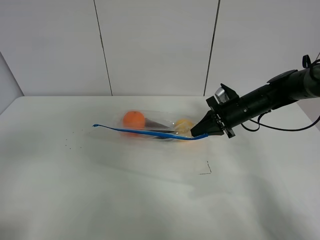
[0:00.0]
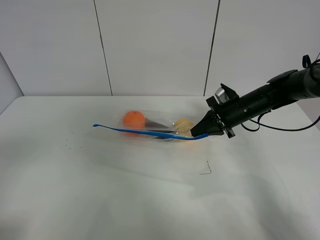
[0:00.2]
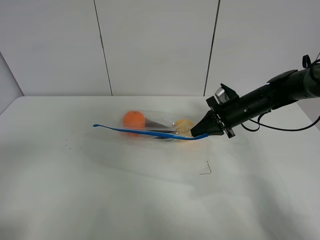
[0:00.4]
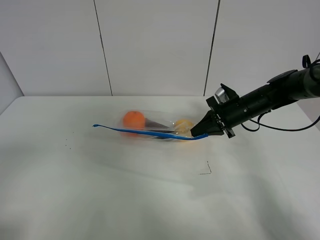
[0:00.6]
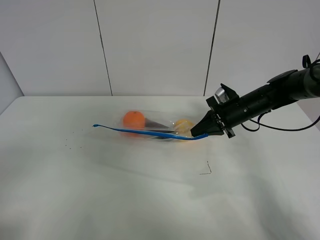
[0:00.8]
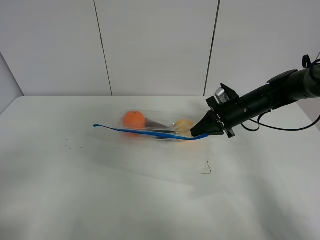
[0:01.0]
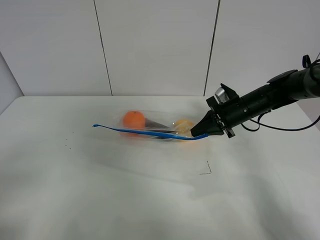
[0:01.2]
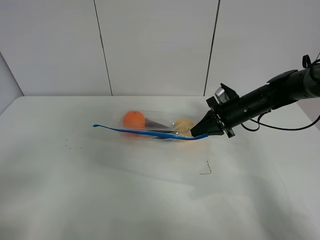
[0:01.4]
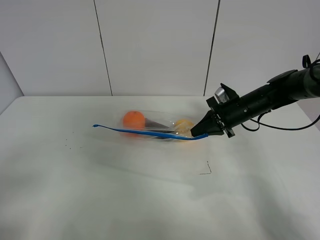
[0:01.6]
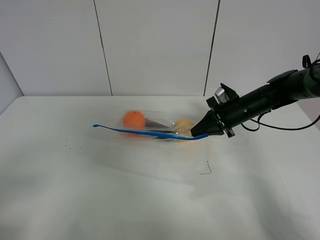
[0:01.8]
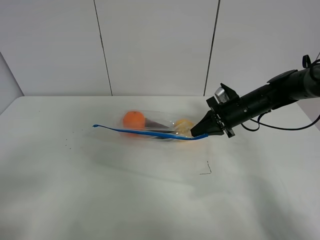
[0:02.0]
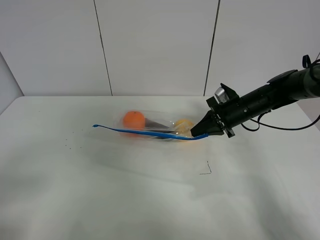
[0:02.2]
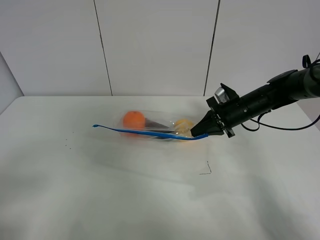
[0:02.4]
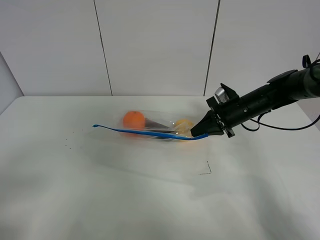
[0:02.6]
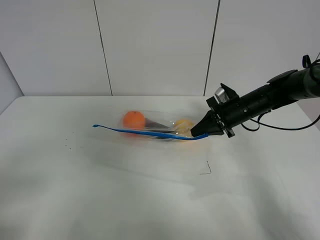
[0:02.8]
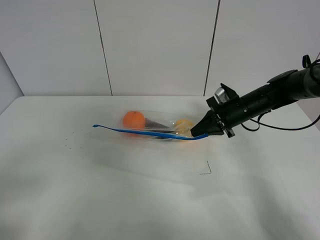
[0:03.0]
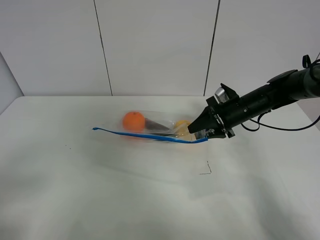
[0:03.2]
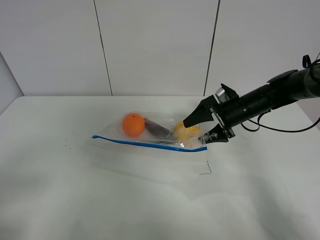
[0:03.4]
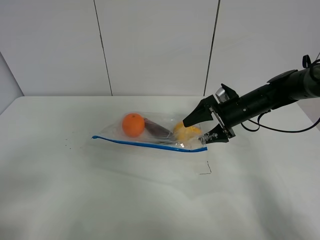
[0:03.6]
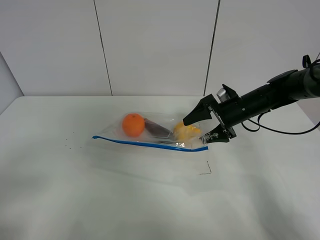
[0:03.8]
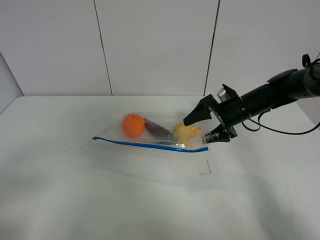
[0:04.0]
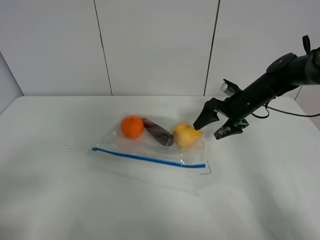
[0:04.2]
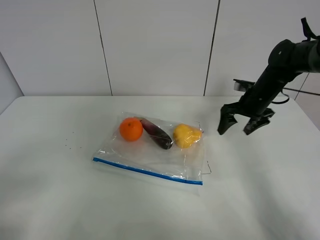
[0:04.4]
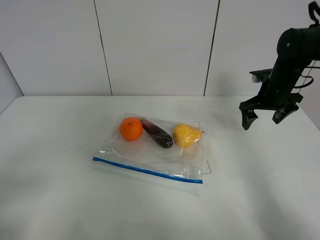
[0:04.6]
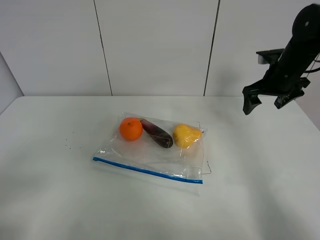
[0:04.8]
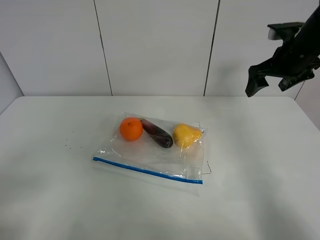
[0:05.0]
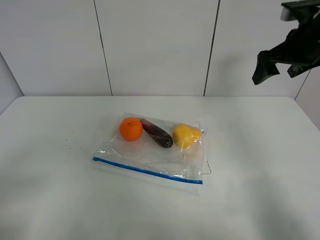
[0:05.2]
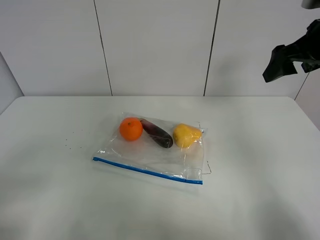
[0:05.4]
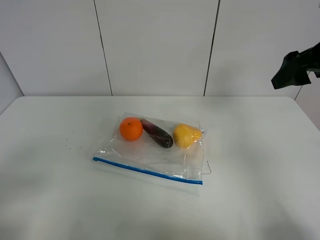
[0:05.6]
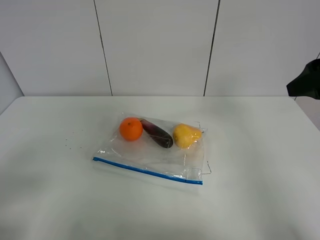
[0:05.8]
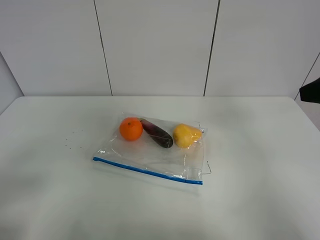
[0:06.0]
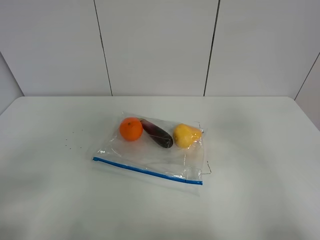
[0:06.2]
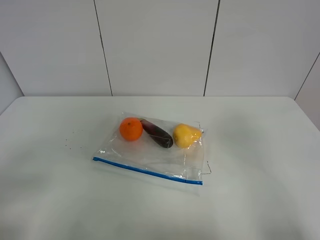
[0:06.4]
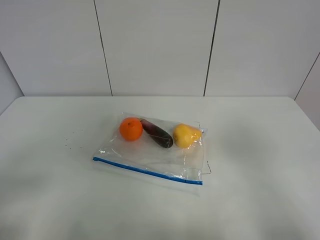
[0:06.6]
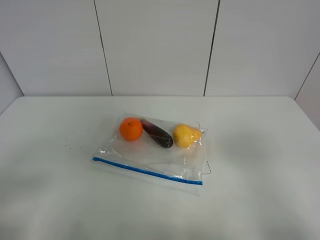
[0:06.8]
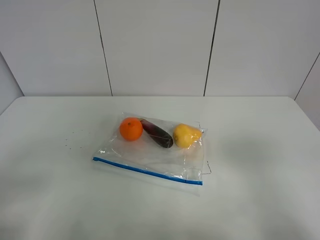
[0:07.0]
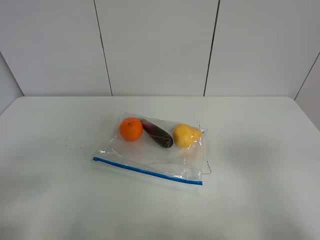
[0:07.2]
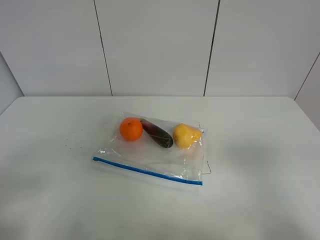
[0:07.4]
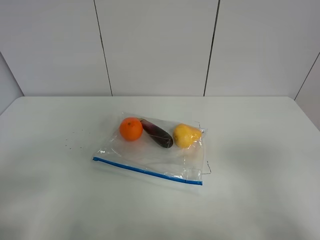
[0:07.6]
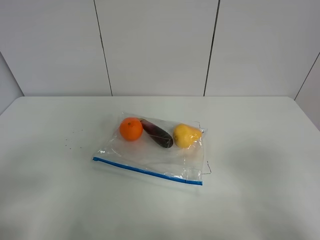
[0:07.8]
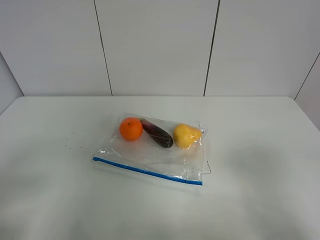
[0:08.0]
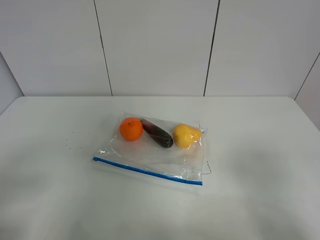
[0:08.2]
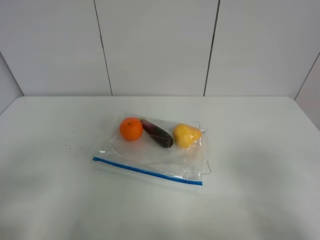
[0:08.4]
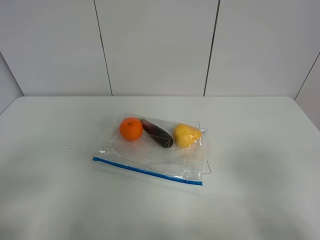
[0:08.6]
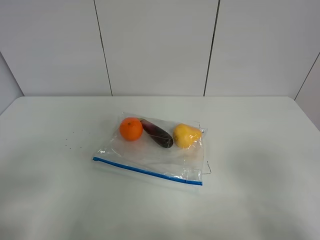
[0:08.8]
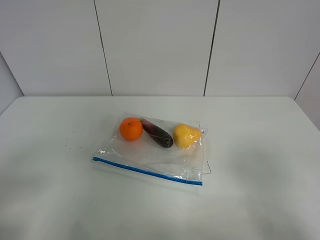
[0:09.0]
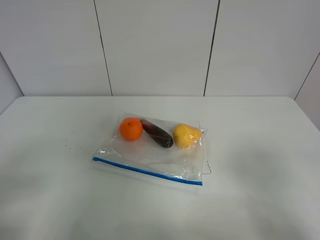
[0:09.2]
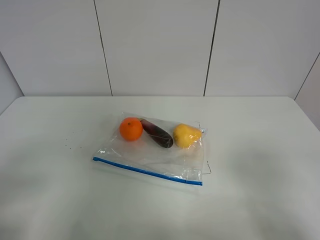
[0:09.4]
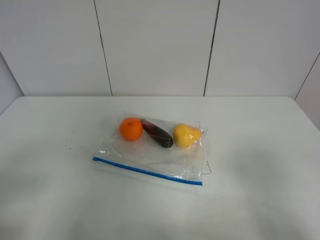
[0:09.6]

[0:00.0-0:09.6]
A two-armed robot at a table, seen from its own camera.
Step, 0:00.0 to 0:04.4: Place the fruit bag with right gripper.
0:01.6 to 0:03.2: The right gripper opens.
0:03.2 to 0:04.8: The right gripper is displaced upward and to the right by some 10 cm, and opens its fingers.
0:04.8 to 0:06.4: The right gripper shifts approximately 30 cm backward.
0:08.0 to 0:09.6: The two grippers keep their place.

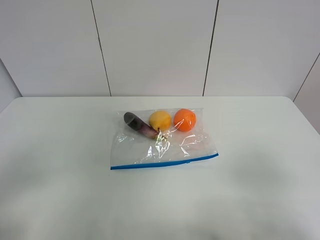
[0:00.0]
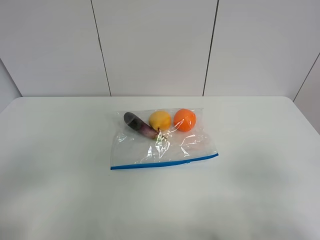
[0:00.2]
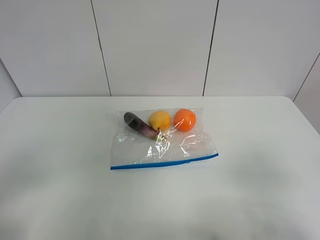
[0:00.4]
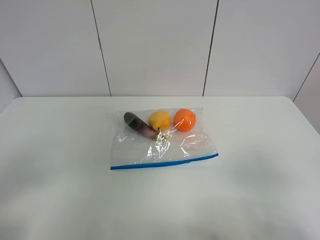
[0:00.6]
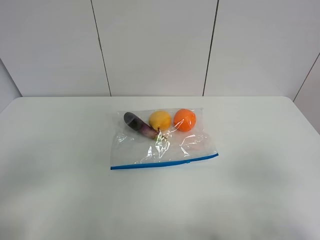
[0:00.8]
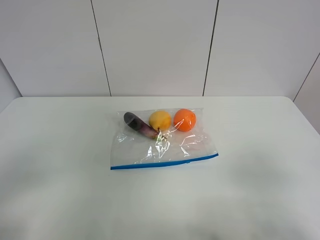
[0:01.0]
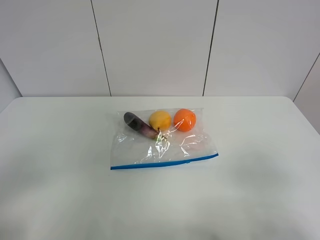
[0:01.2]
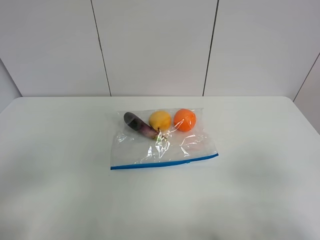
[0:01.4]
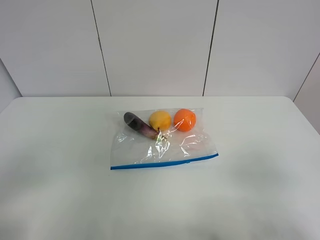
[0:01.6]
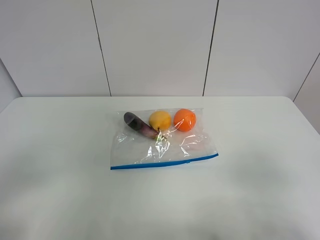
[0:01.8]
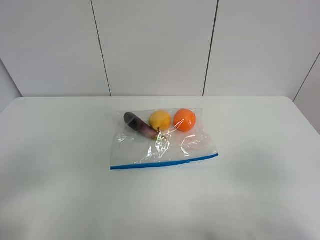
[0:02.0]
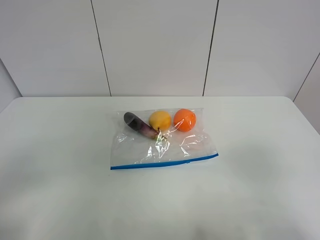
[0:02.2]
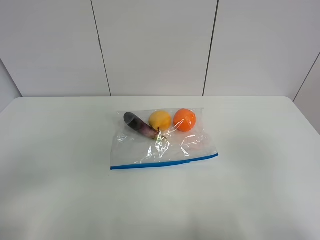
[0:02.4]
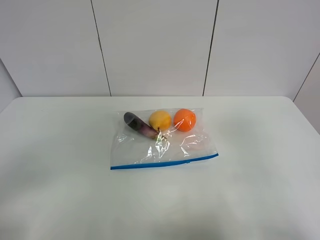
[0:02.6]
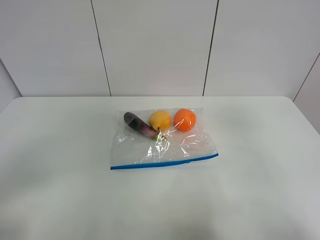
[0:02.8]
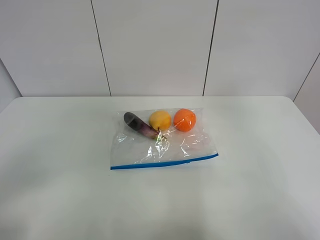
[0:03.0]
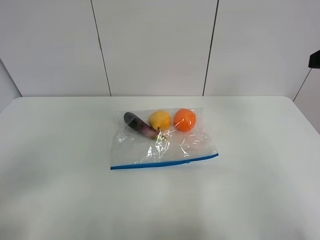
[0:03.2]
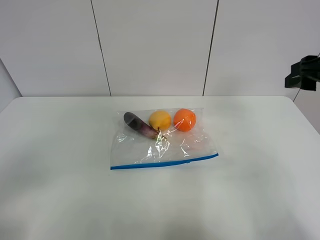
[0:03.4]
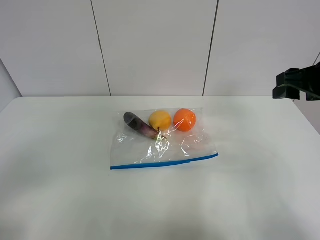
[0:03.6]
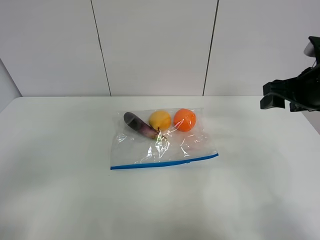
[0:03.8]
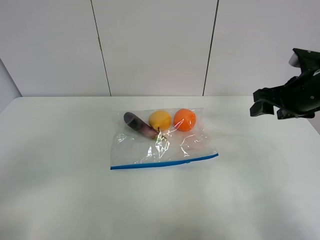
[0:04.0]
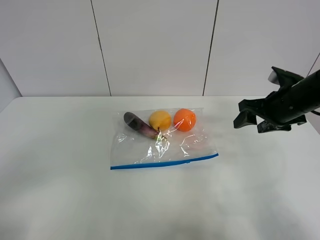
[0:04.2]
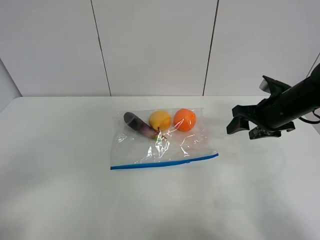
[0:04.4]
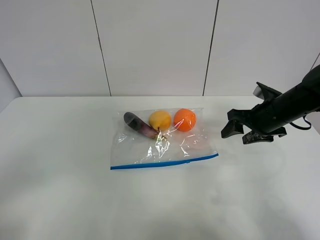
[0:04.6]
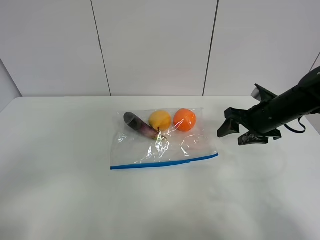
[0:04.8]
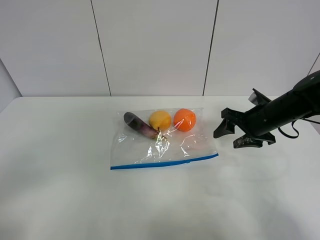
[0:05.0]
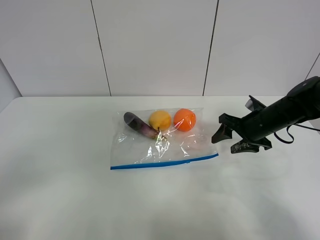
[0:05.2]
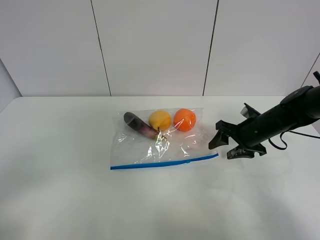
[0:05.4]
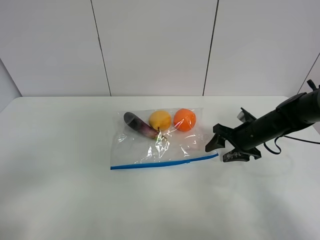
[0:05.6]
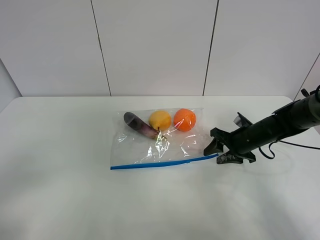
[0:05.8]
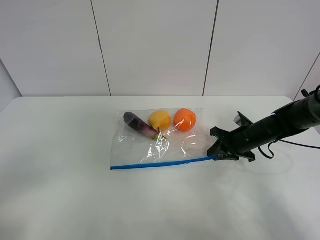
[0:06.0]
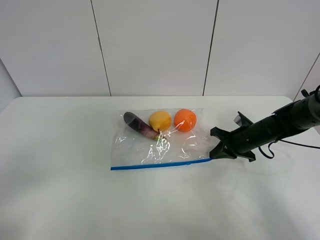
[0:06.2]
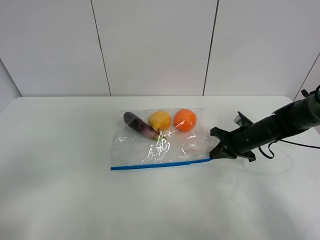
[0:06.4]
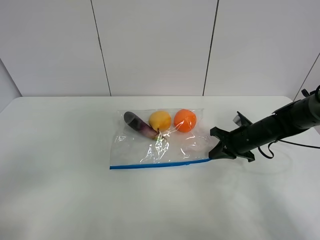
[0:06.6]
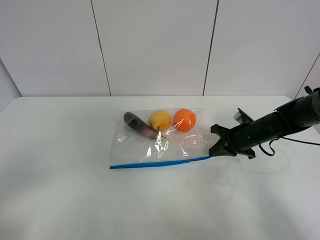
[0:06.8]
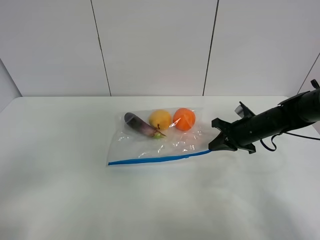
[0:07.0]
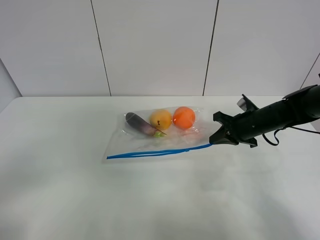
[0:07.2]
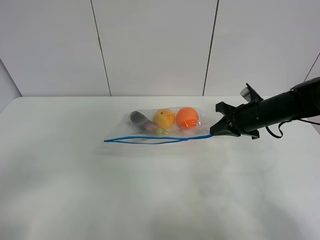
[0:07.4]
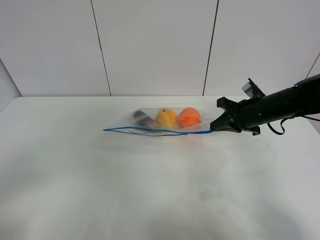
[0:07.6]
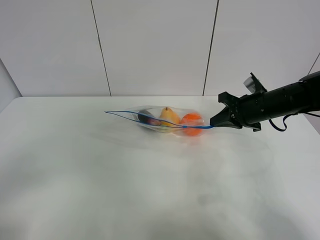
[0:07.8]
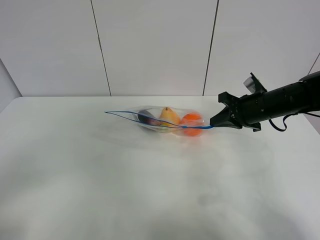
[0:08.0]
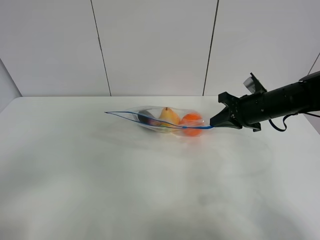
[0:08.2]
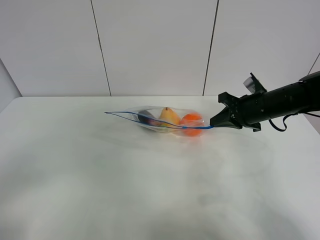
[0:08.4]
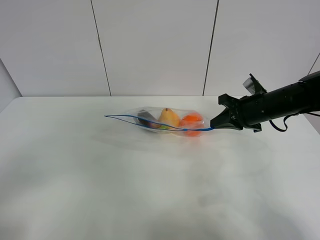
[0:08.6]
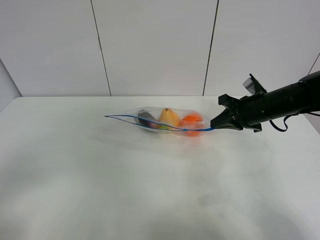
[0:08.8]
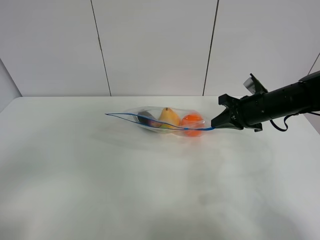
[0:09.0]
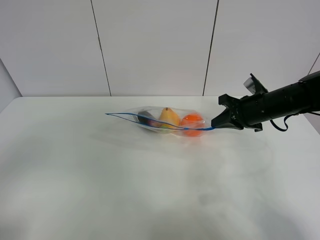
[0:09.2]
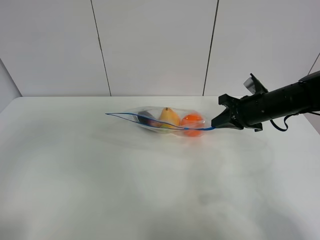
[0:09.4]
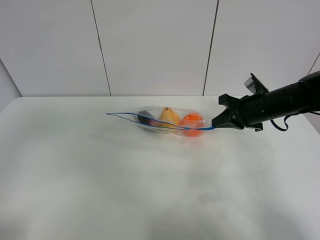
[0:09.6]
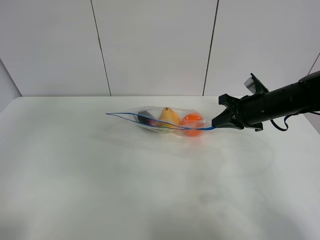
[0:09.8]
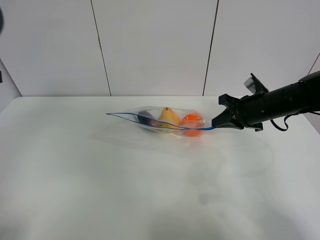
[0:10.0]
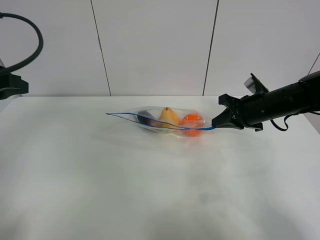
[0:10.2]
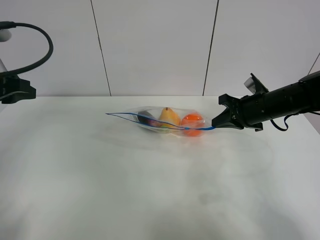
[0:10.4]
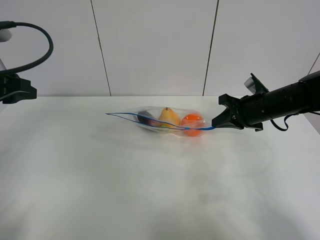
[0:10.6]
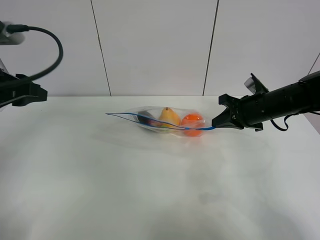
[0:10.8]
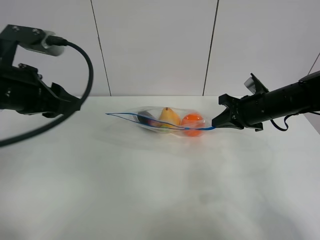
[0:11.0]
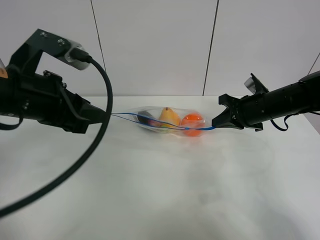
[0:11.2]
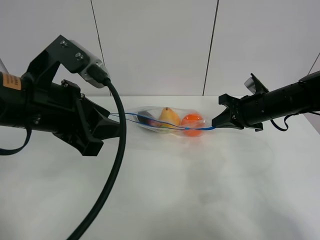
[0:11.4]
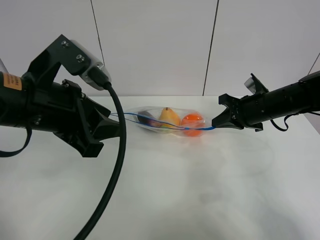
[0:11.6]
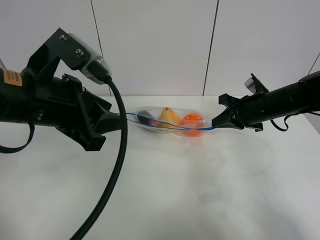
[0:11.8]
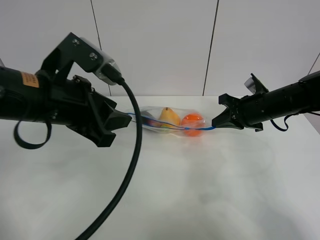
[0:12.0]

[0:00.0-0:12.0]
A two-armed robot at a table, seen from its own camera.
Step, 0:00.0 to 0:06.0: Grasp the fruit bag with right gripper.
Step, 0:06.2 to 0:08.6: Lift the fruit bag with your right gripper.
0:00.0 to 0:01.6: Both grippers stay about where they are.
0:01.6 to 0:03.0: The right gripper moves forward and upward, about 20 cm.
0:03.0 to 0:04.4: The right gripper is displaced downward and forward by about 25 cm.
0:04.4 to 0:06.0: The right gripper moves downward, approximately 10 cm, and closes.
0:06.0 to 0:07.6: The right gripper is displaced upward by some 10 cm.
0:07.6 to 0:09.0: The grippers make only small movements.
0:09.0 to 0:10.4: The left gripper moves forward, roughly 25 cm.
0:10.4 to 0:12.0: The left gripper is displaced to the right by roughly 15 cm.

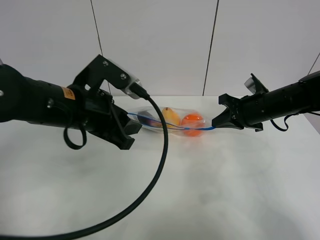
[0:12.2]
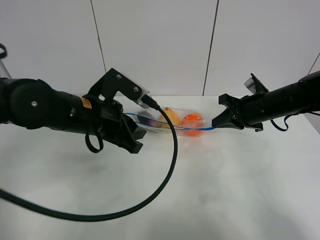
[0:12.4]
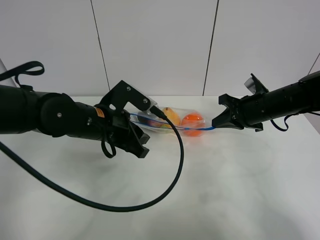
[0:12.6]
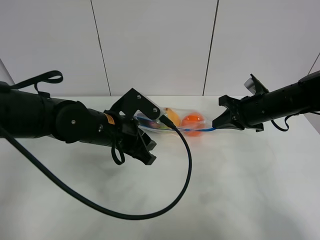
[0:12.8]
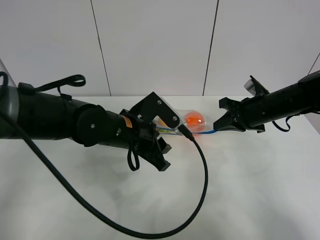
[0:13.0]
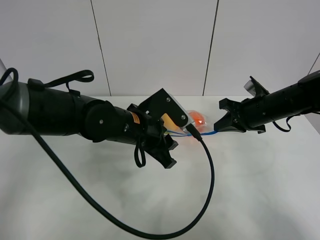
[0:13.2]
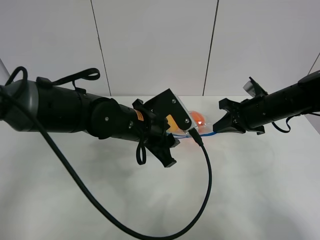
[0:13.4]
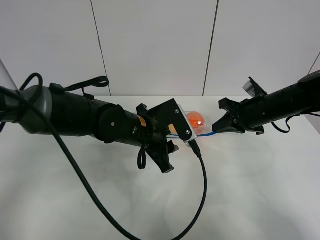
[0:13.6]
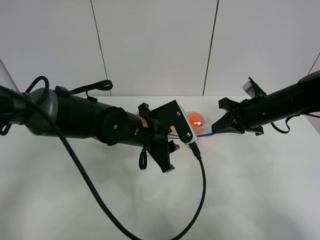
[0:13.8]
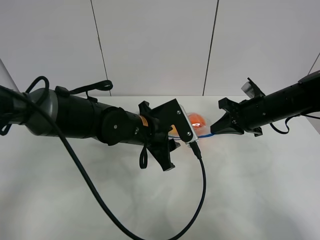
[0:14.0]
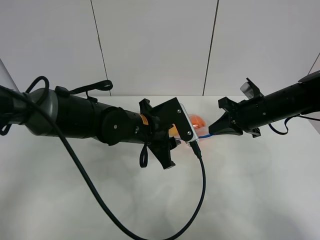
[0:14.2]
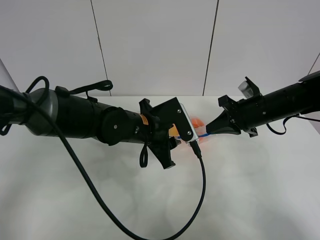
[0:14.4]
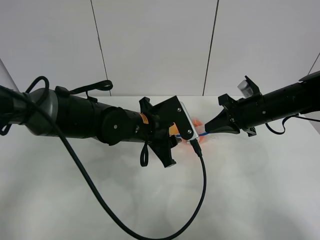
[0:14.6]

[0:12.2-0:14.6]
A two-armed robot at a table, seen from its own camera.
0:12.2 to 0:13.4: The left gripper heads to the right and downward, covering about 10 cm.
0:13.4 to 0:14.6: The grippers stay close to where they were, moving slightly.
